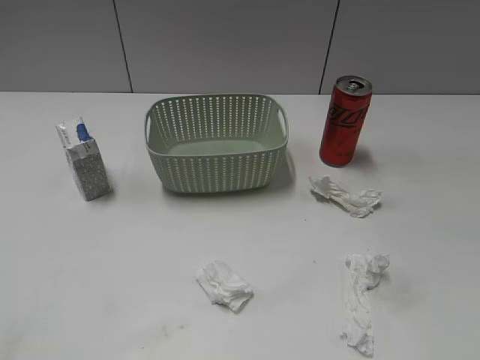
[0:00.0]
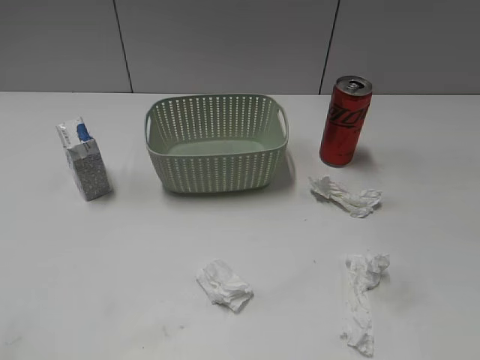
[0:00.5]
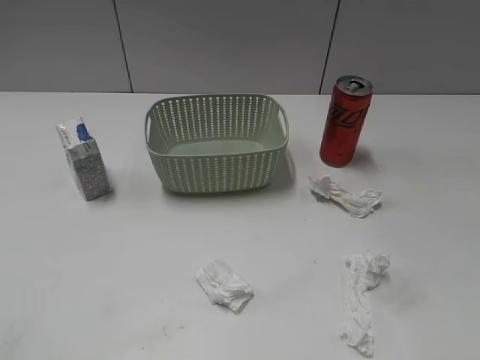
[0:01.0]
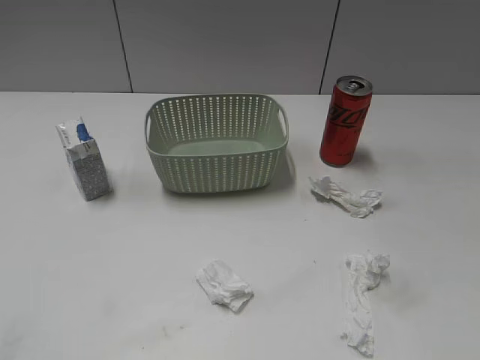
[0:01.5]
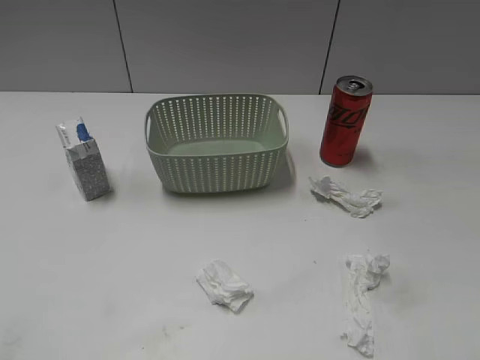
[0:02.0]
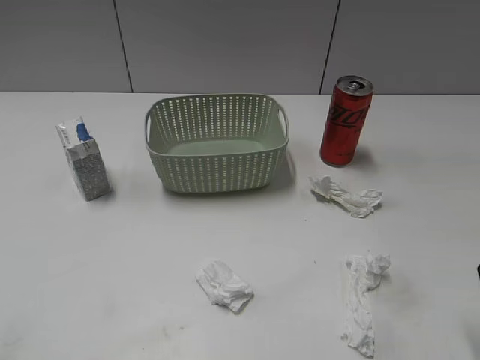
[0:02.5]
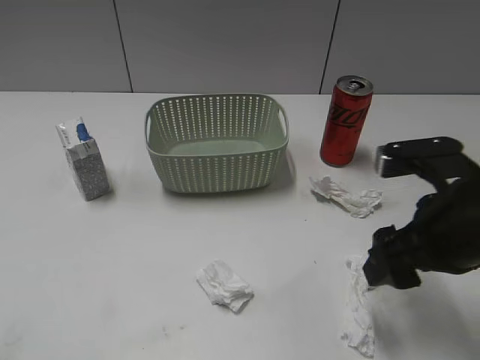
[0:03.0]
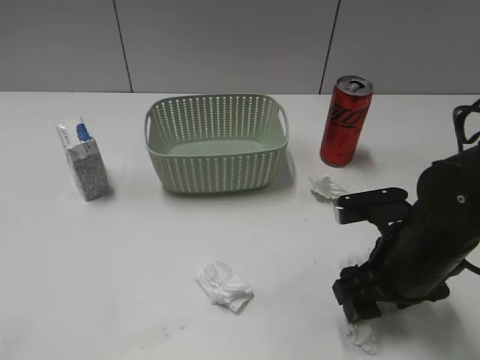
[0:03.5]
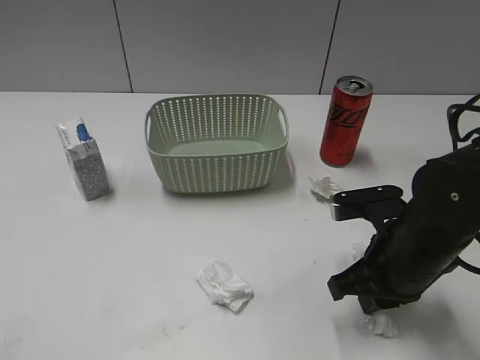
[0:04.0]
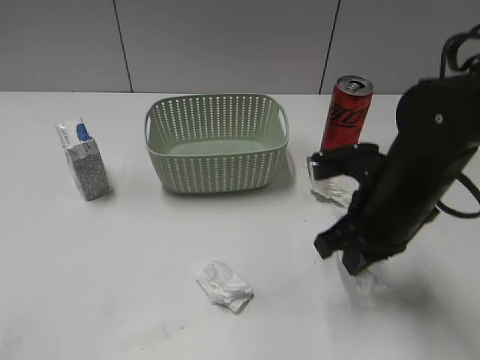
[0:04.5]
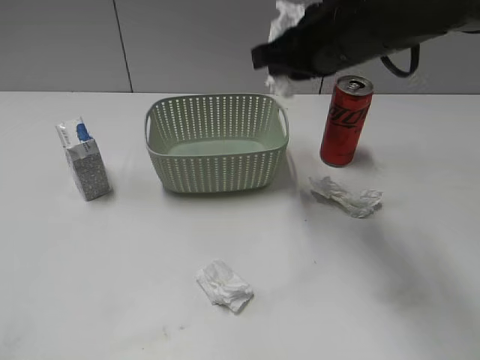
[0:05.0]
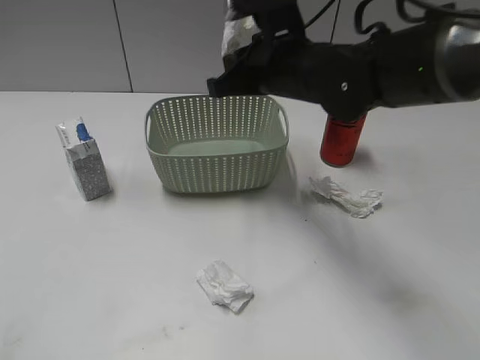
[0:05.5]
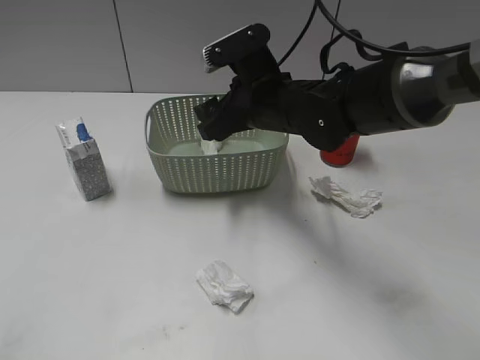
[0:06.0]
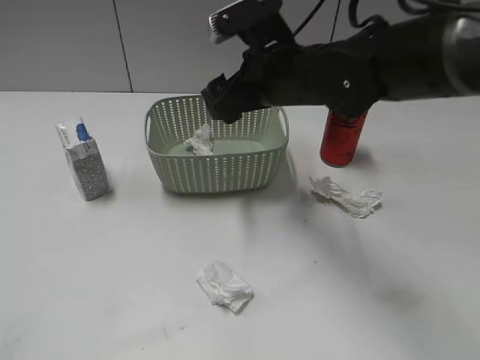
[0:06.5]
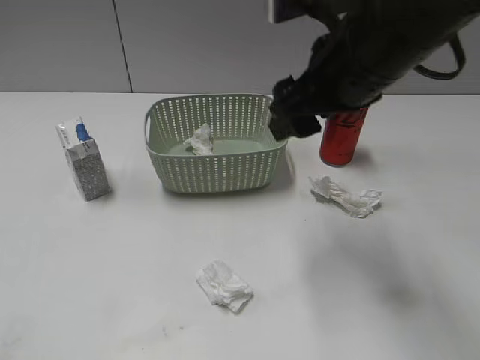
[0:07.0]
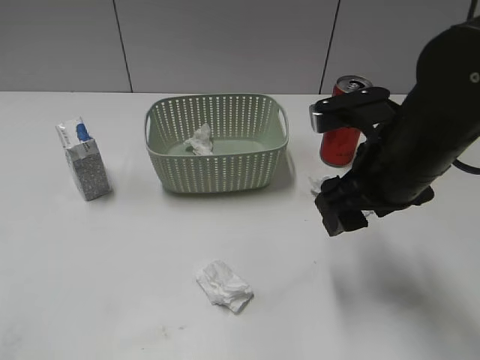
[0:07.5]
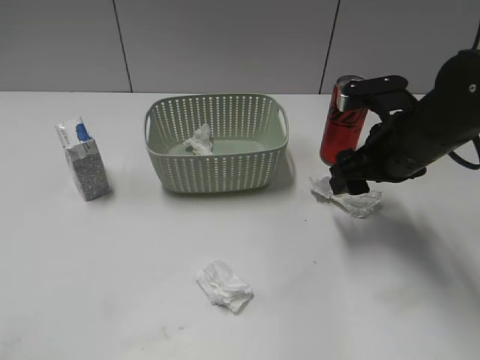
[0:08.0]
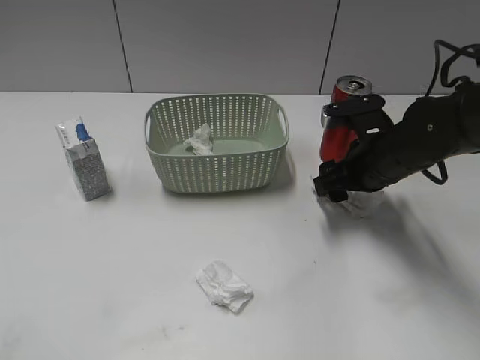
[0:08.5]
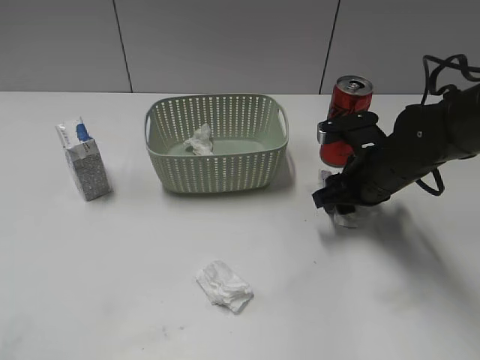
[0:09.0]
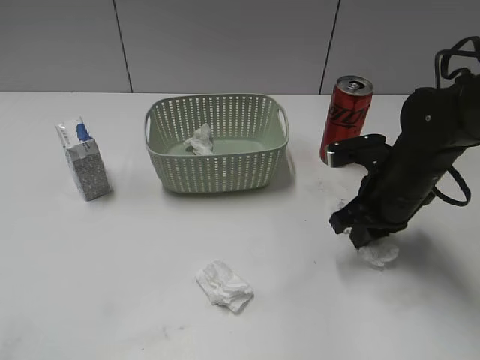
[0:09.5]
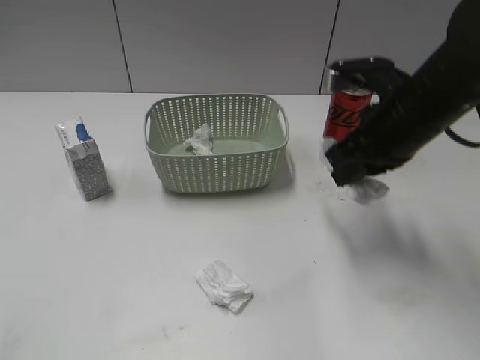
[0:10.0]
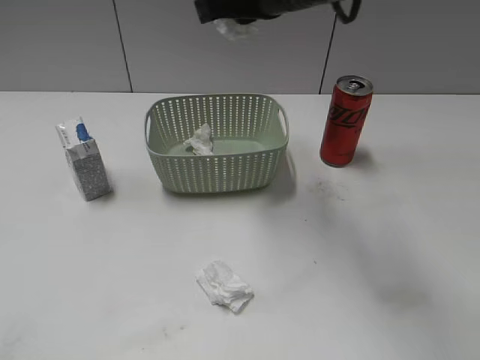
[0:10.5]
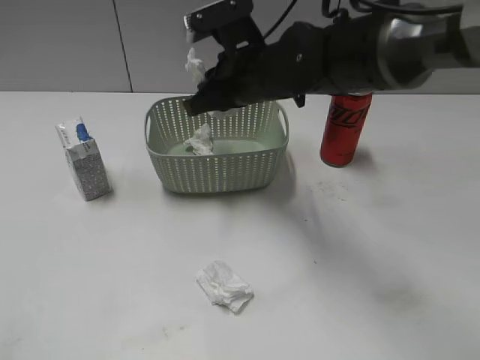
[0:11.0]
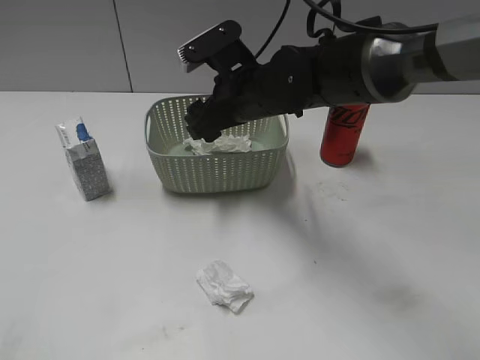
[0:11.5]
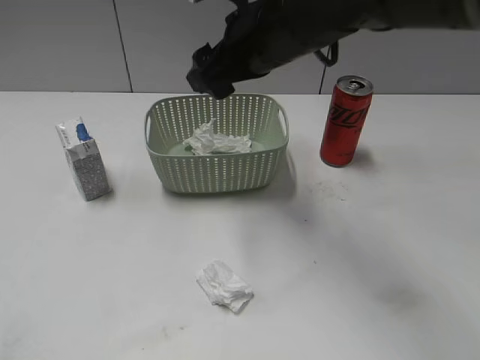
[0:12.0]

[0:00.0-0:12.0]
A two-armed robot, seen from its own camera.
Step, 0:02.5 to 0:04.0: Grasp the waste paper with right gripper.
Step, 0:04.5 to 0:06.0: Place the waste paper in the basket with right gripper.
Step, 0:06.5 to 0:09.0: Grasp the waste paper with right gripper.
Step, 0:09.5 to 0:11.5: Place the waste paper in the basket with right gripper.
0:02.0 to 0:04.0: The right gripper travels downward, to the left and forward by about 25 cm, and closes its fingers.
0:04.0 to 0:06.0: The right gripper travels forward, to the left and upward by some 20 cm, and opens.
0:06.0 to 0:08.0: The right gripper heads to the right, covering some 15 cm.
0:08.0 to 0:10.0: The right gripper heads upward, covering roughly 5 cm, and closes its fingers.
0:10.0 to 0:12.0: The right gripper is displaced to the left by about 10 cm, and opens its fingers.

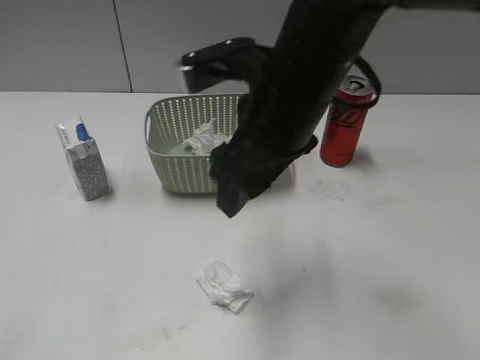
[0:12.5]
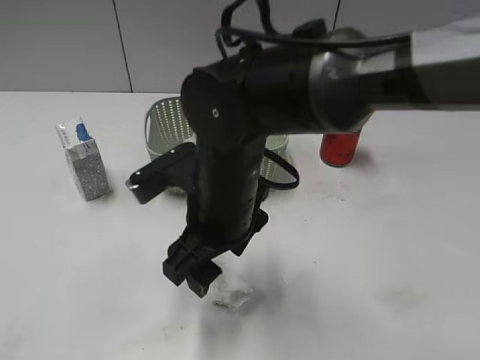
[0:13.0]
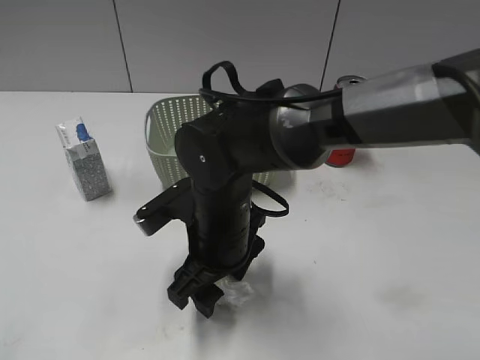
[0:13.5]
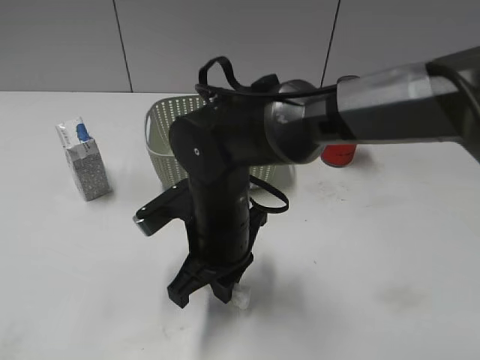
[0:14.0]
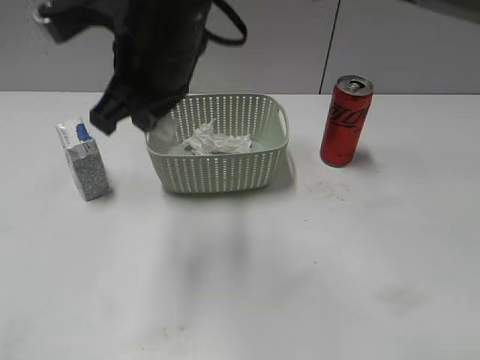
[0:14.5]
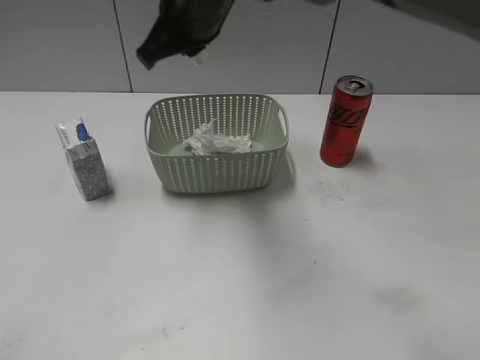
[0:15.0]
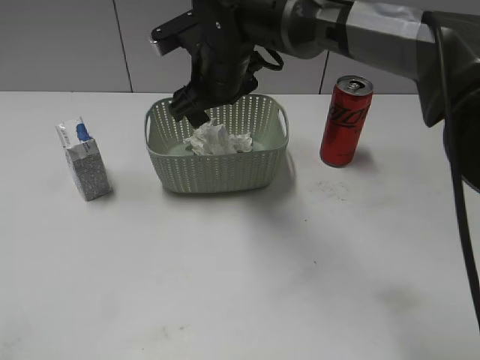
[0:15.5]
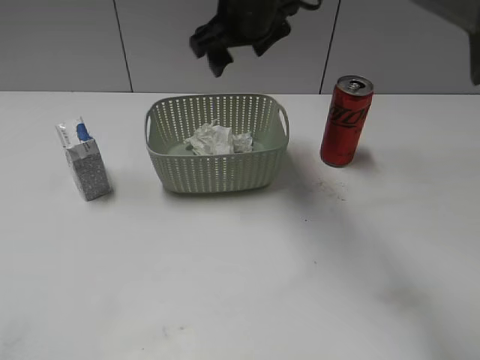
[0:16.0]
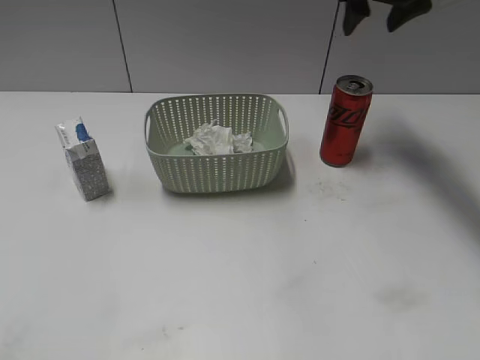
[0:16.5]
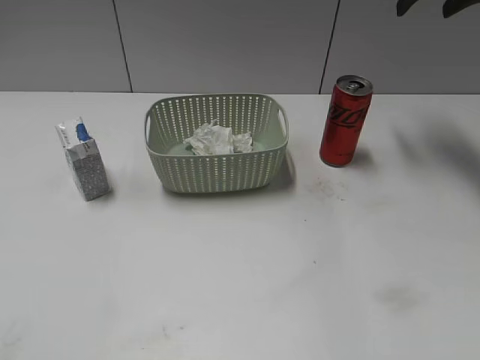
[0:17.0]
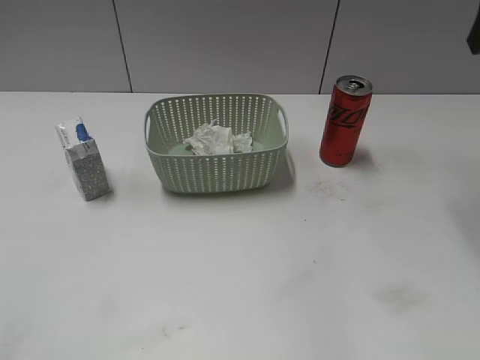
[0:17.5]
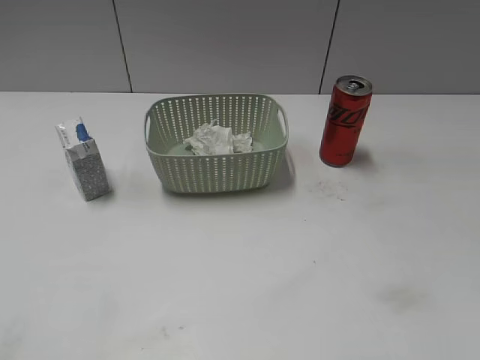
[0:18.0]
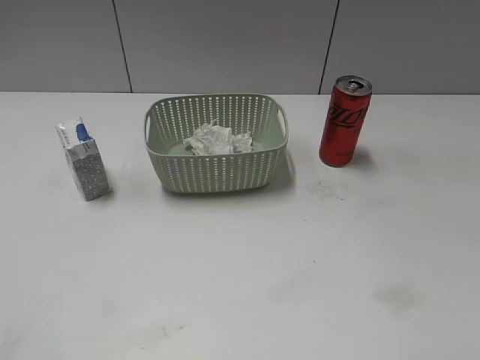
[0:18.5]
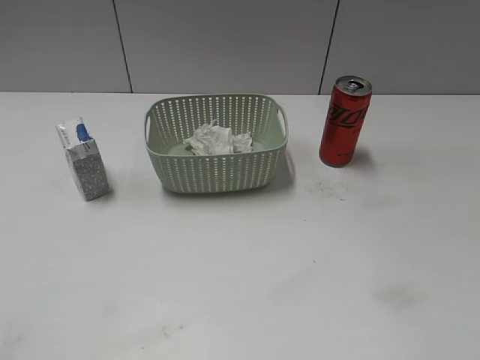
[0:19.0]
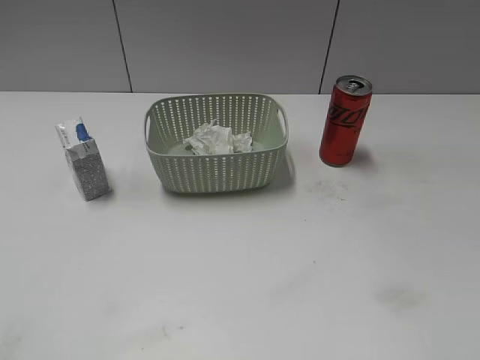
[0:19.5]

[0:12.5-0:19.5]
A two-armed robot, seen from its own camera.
Step, 0:14.0 to 0:15.5: Place the waste paper in the basket with right gripper.
0:12.5 to 0:14.5: The right gripper heads to the left, covering roughly 10 cm, goes downward and returns, roughly 15 cm each way, and closes.
0:14.5 to 0:16.0: The right gripper shifts approximately 15 cm forward and to the right, and opens its fingers.
0:16.0 to 0:17.5: The right gripper travels to the right by some 25 cm.

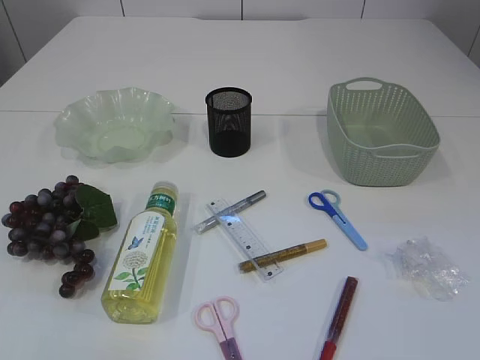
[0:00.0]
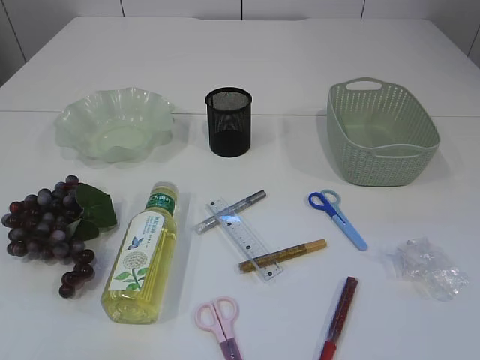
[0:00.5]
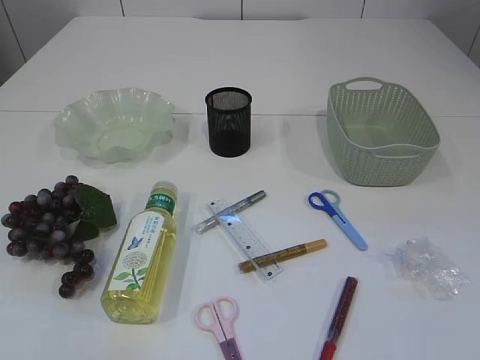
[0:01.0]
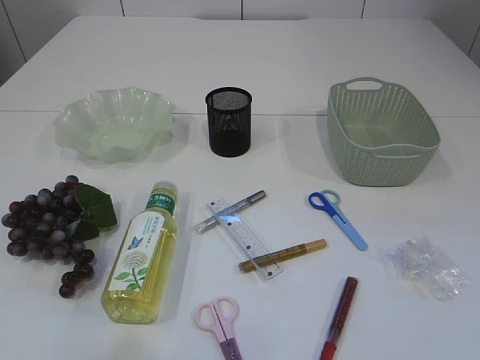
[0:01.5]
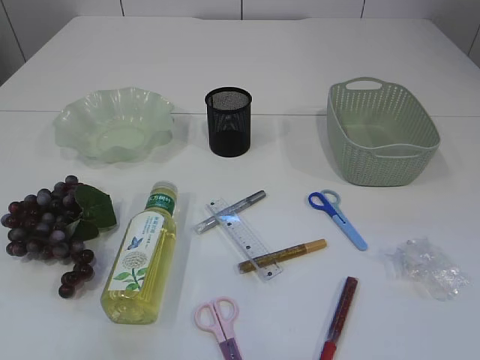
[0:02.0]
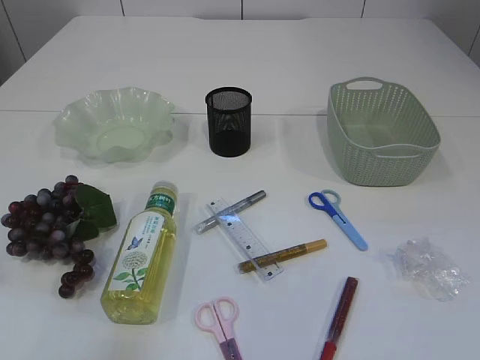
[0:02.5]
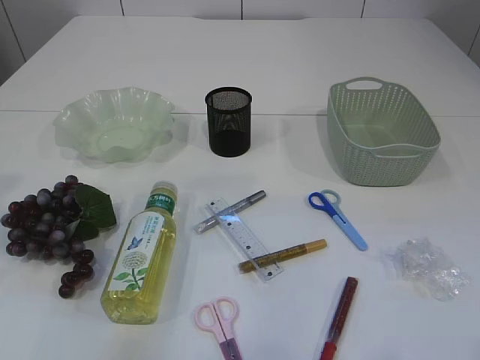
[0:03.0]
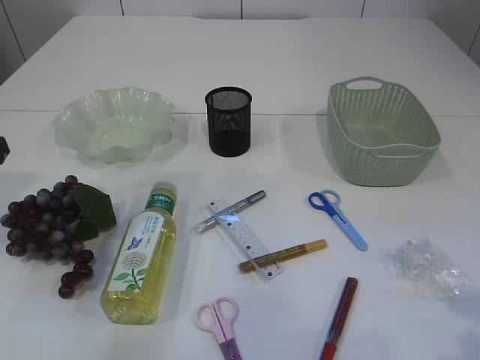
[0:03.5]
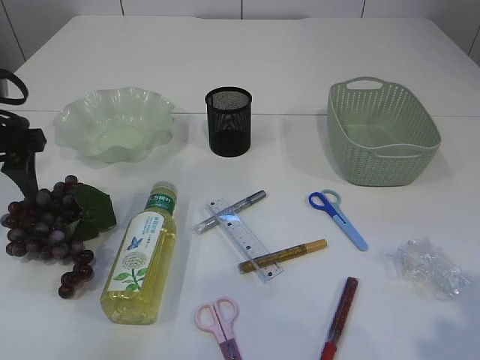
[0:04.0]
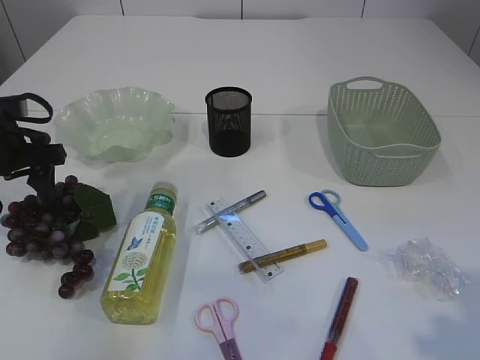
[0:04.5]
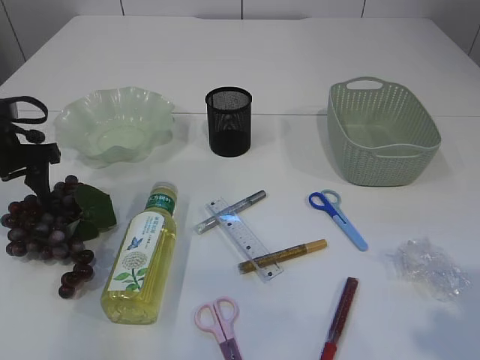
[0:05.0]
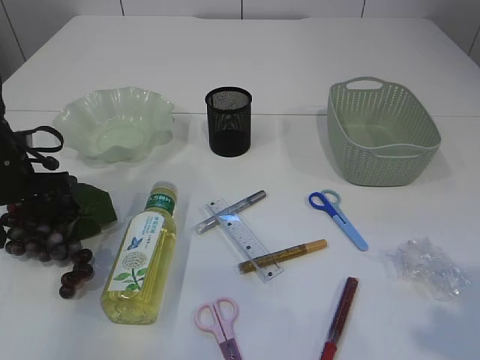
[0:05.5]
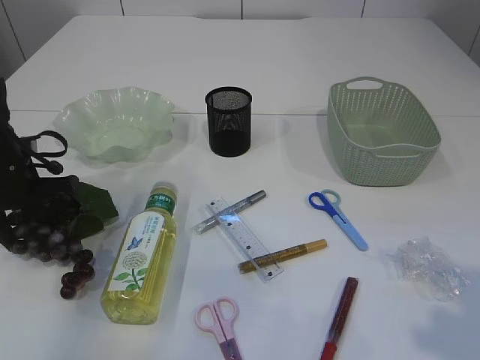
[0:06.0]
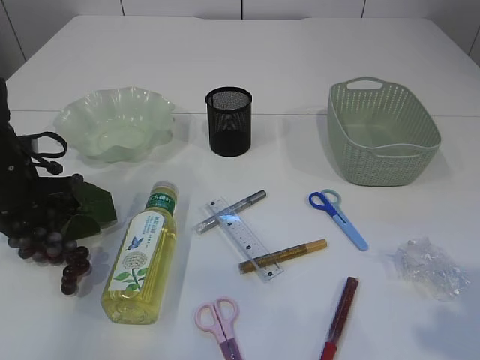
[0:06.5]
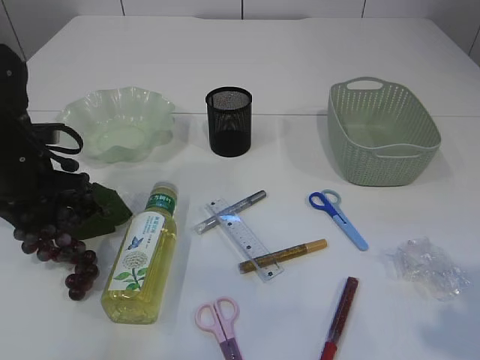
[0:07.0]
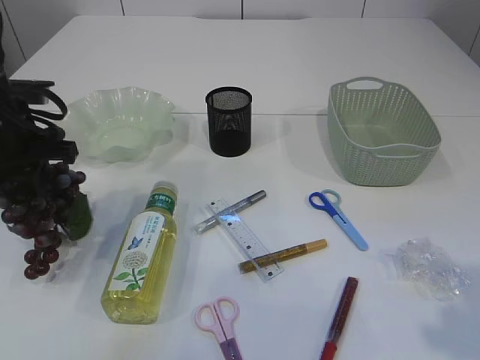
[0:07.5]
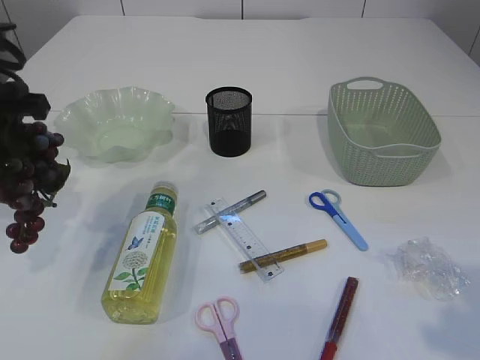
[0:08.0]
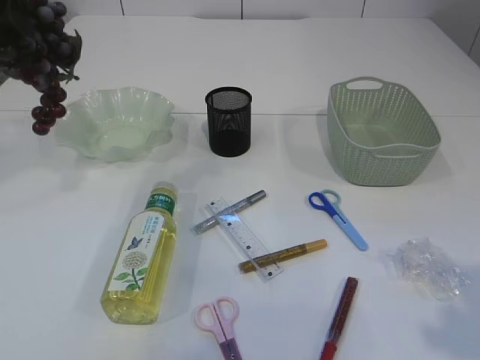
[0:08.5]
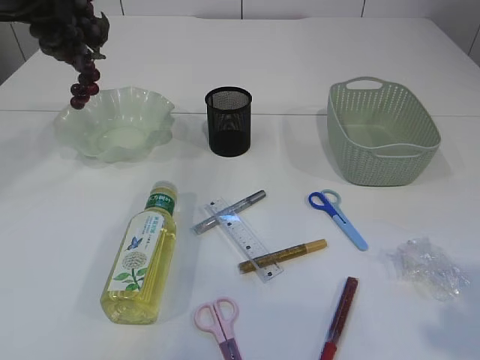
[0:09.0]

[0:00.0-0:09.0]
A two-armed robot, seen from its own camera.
Step, 0:00.0 to 0:07.5: Pick up the grapes.
0:02.0 to 0:04.5: The right gripper travels forward by about 10 cm. The left gripper goes about 30 cm forward and downward.
0:04.5 to 0:07.0: The left gripper closes.
0:07.0 to 0:09.0: The left gripper moves upward, about 20 cm.
